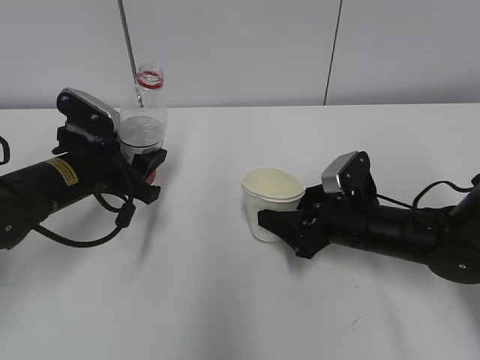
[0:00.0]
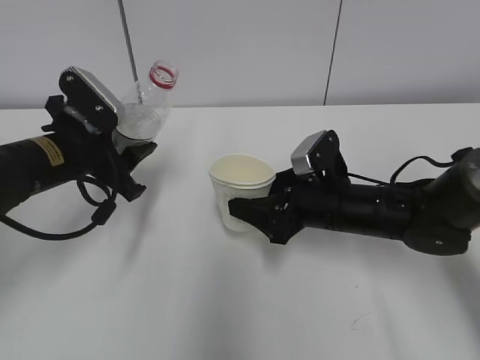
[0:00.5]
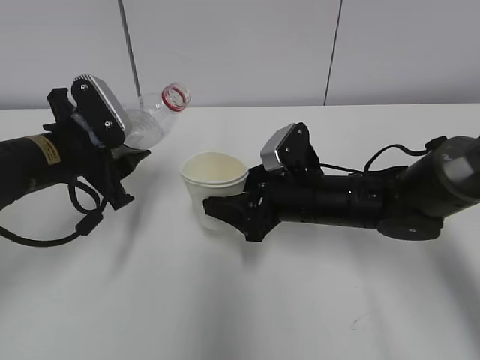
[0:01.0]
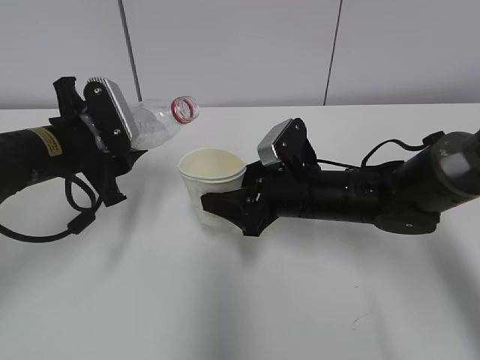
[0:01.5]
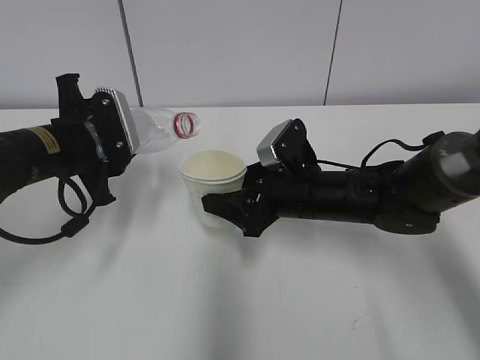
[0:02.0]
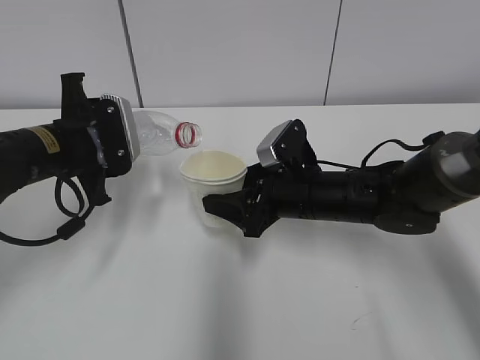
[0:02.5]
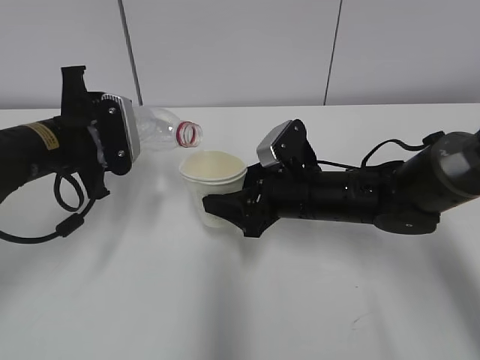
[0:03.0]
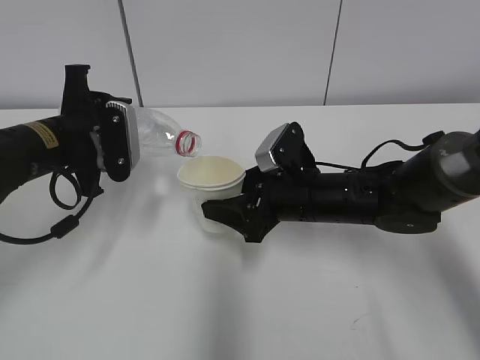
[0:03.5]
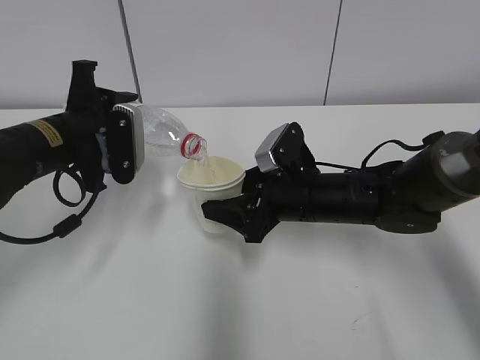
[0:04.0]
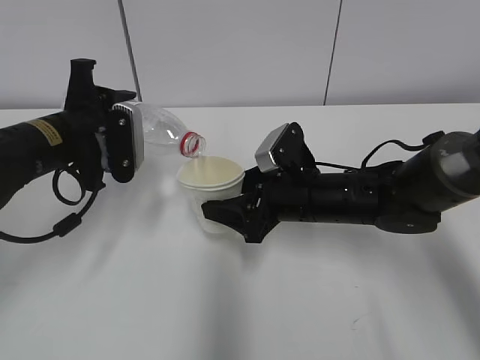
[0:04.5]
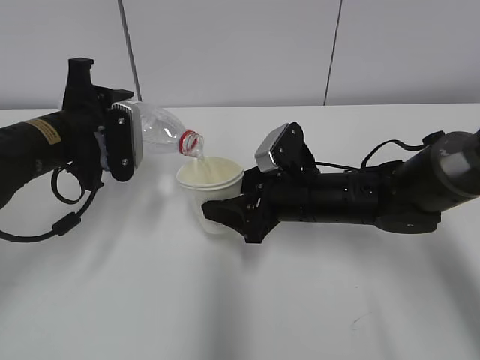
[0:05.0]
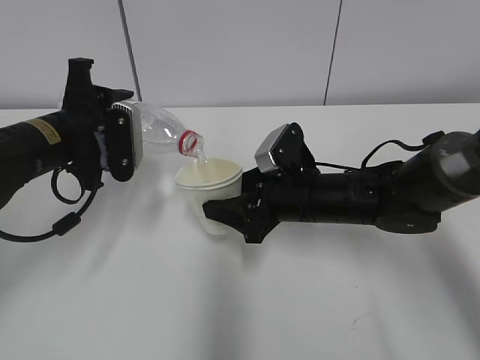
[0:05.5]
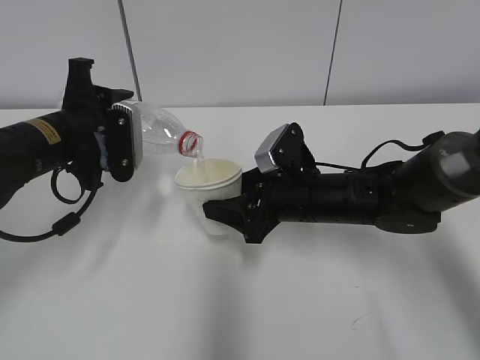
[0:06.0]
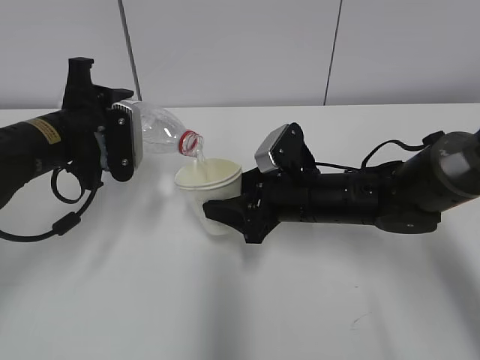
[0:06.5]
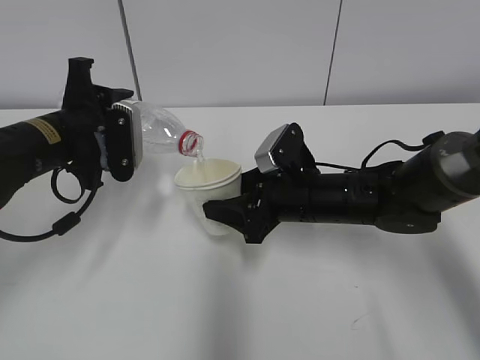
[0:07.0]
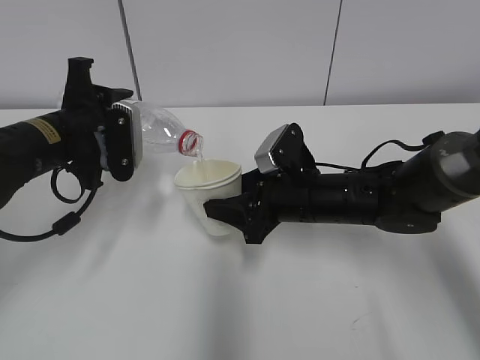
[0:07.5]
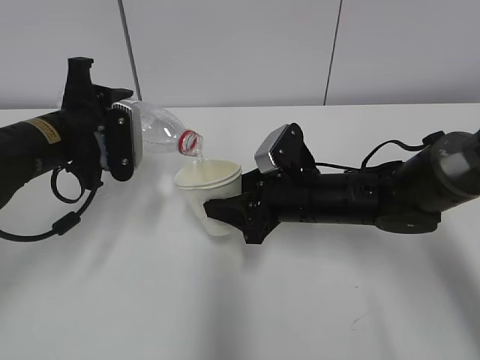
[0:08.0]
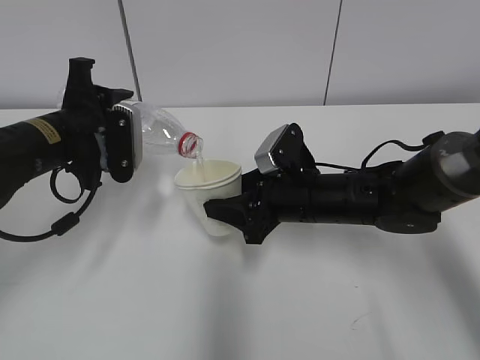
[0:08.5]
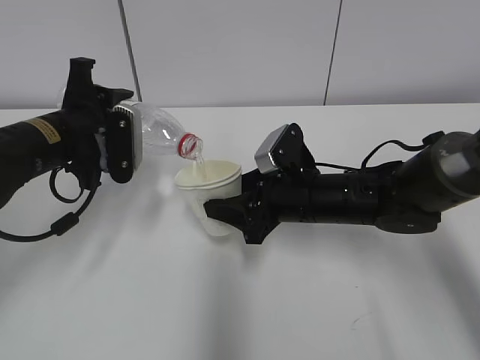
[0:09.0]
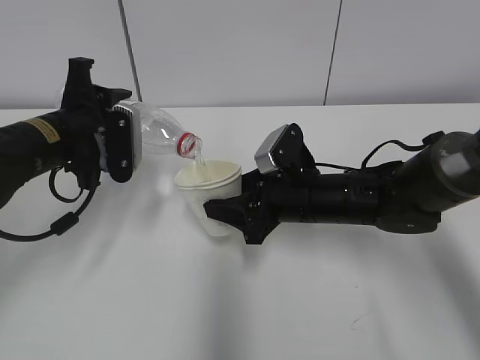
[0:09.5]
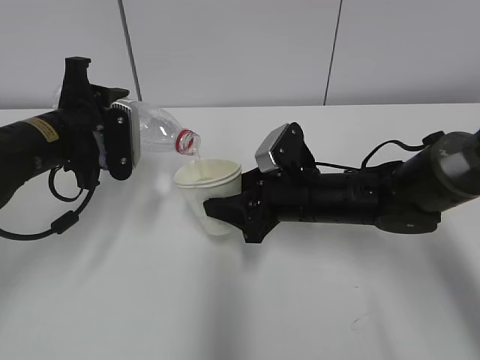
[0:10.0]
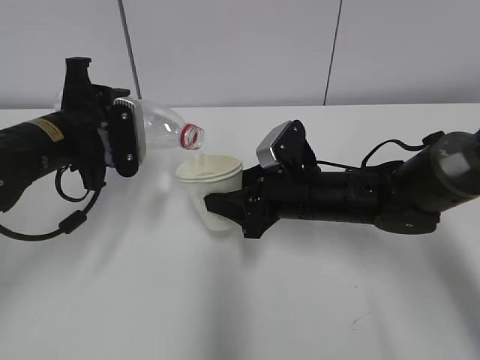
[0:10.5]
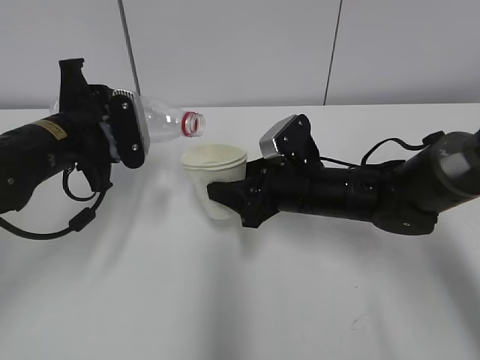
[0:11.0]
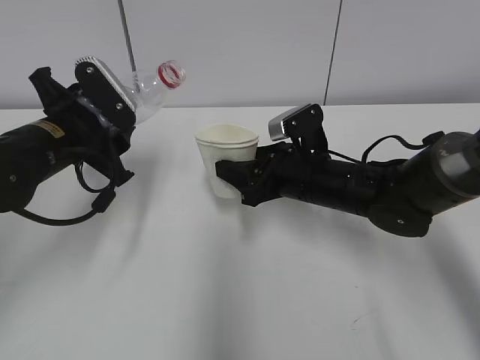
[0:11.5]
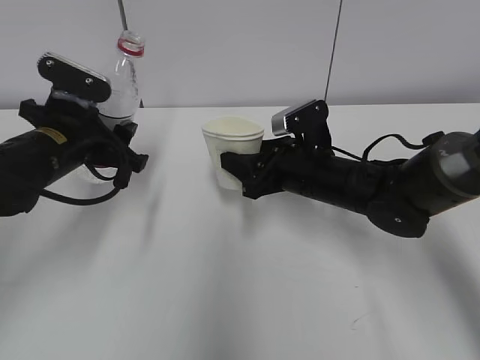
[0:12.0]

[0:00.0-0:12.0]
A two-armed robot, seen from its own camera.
Step, 0:01.5 to 0:07.0: Fill water with the right hand.
Step, 0:01.5 to 0:07.0: Pour water with the left hand.
Step, 0:09.0 to 0:11.0: Place the water bottle with the left hand.
0:00.0 to 0:02.0: The right gripper goes some 5 cm to the left.
0:04.0 to 0:10.0: Both grippers stay put.

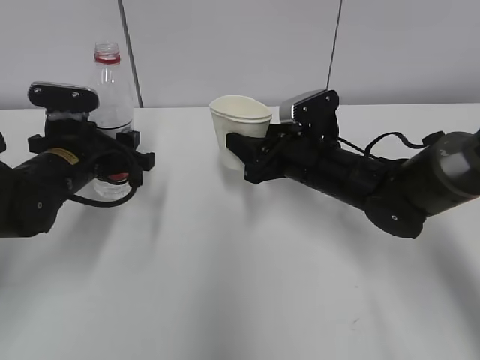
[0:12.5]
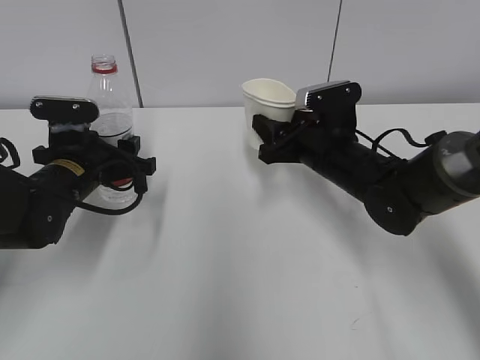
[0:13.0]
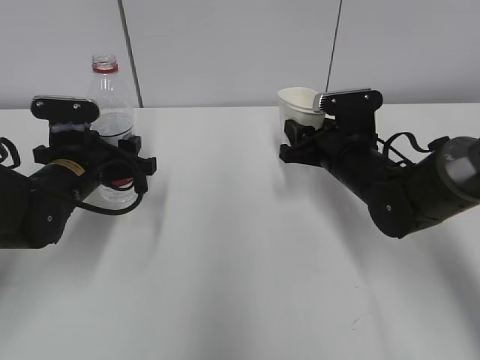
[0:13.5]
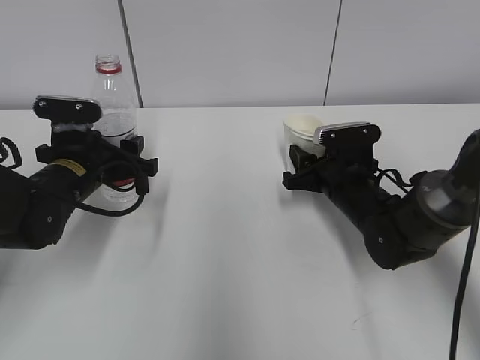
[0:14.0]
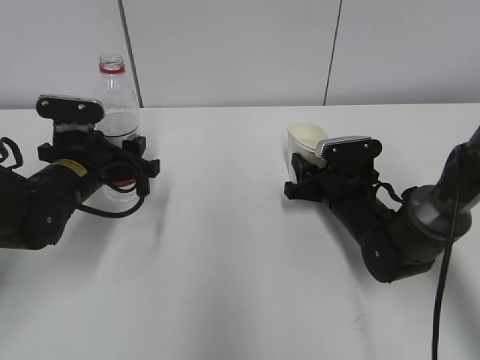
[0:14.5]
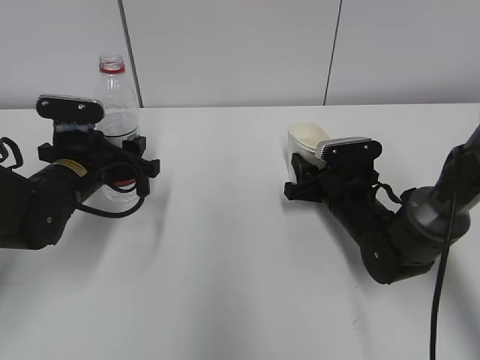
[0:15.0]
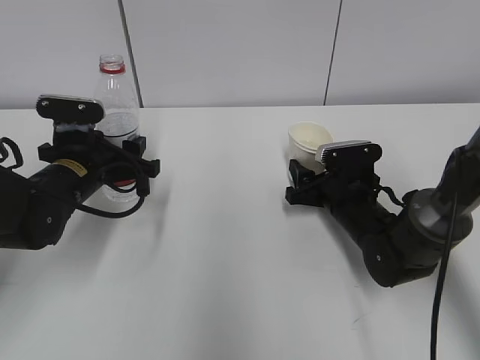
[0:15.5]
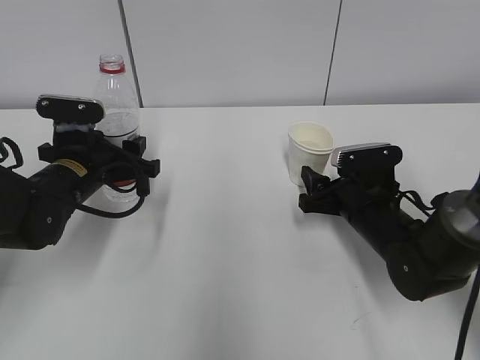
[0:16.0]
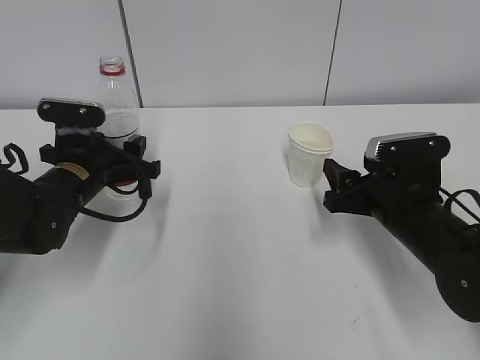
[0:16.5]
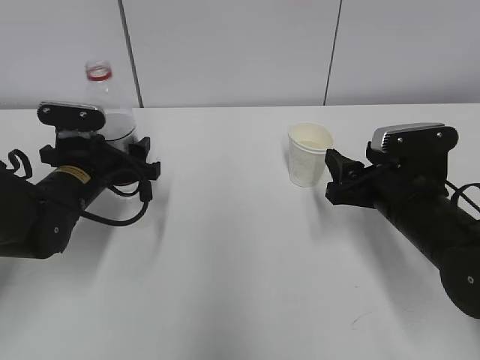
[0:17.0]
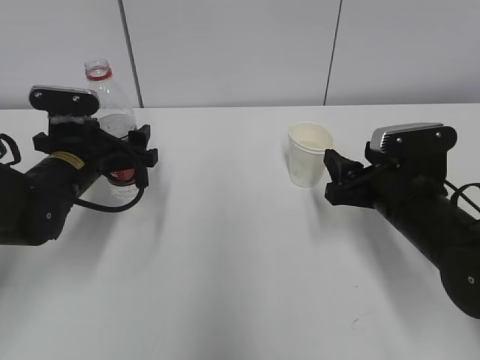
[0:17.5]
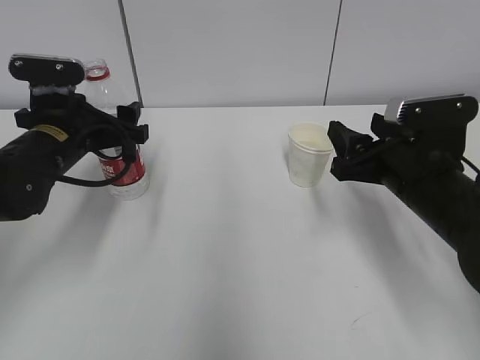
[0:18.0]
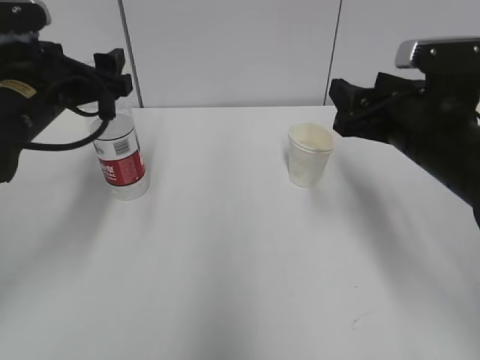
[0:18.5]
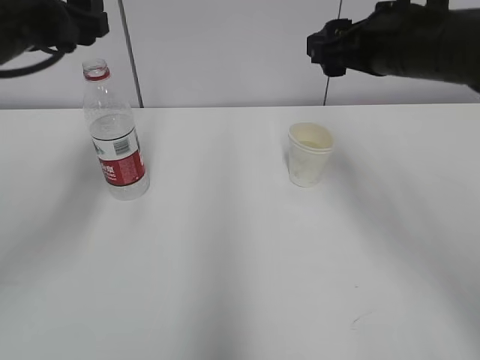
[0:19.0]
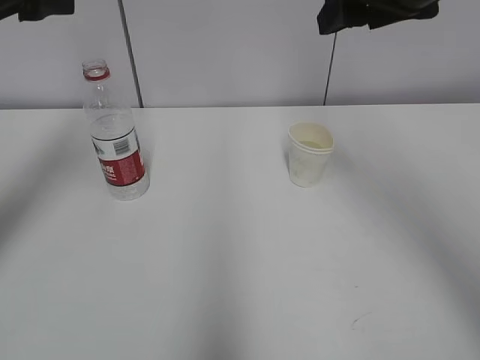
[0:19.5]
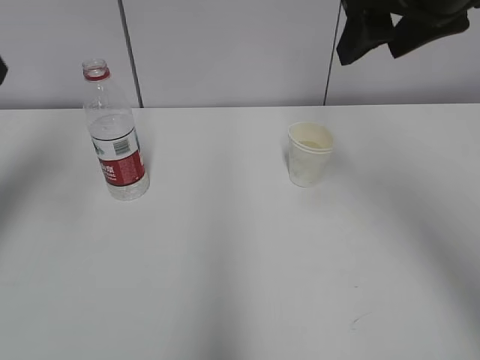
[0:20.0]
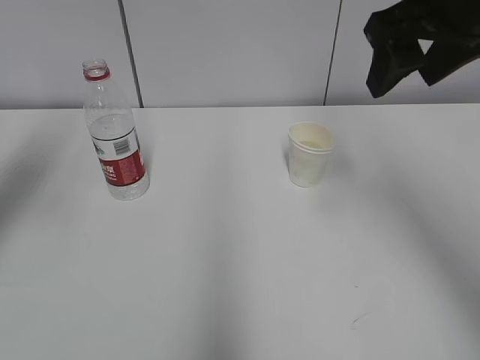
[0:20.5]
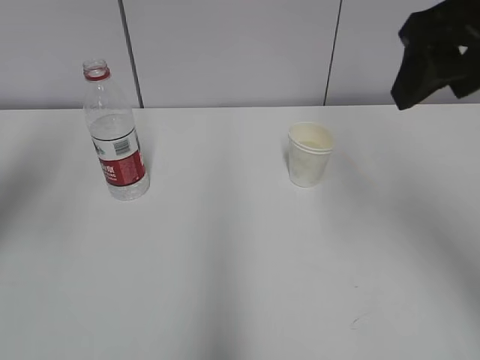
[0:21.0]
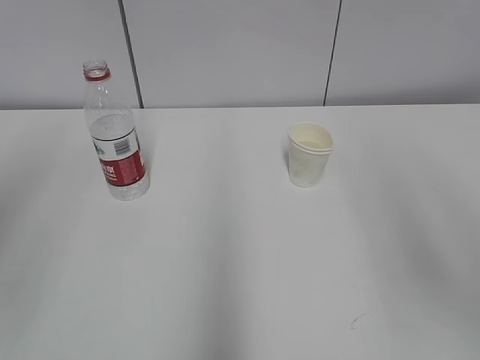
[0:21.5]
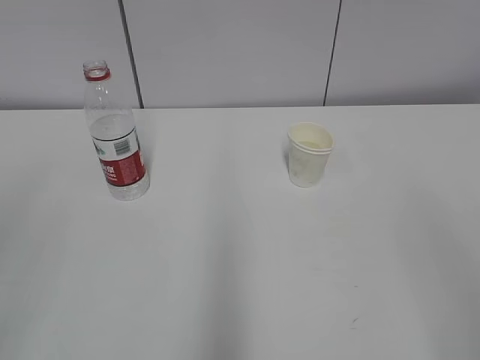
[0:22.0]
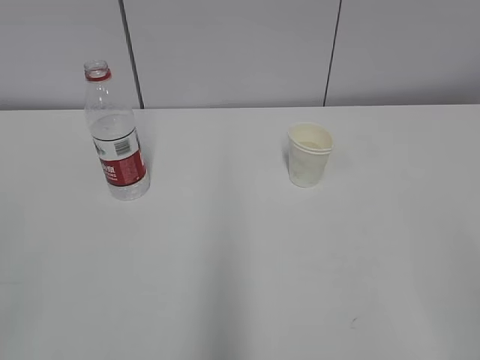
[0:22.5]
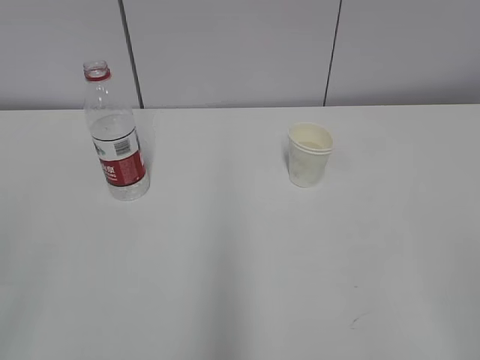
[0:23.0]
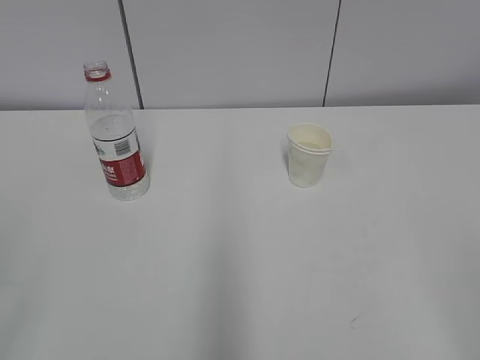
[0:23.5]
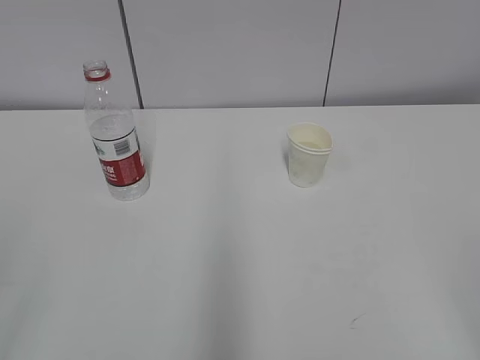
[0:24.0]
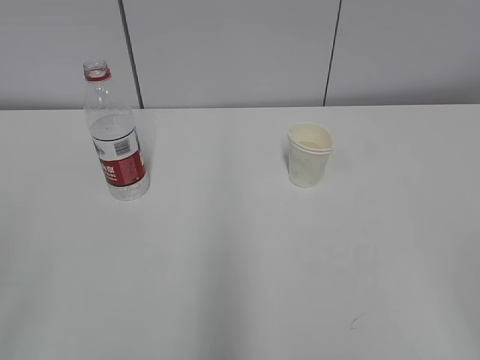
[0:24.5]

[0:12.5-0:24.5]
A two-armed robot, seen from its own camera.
0:12.5 to 0:14.5: The right gripper shifts about 10 cm downward and to the right.
0:14.5 to 0:16.5: The right gripper travels backward and upward by approximately 10 cm, and opens up.
0:16.5 to 0:18.5: The two grippers go some 10 cm upward. The left gripper opens its fingers.
0:18.5 to 0:20.5: The right gripper is displaced upward by some 15 cm. The left gripper travels upward and to the left by roughly 15 cm.
0:20.5 to 0:22.5: Both grippers travel together backward, approximately 30 cm.
